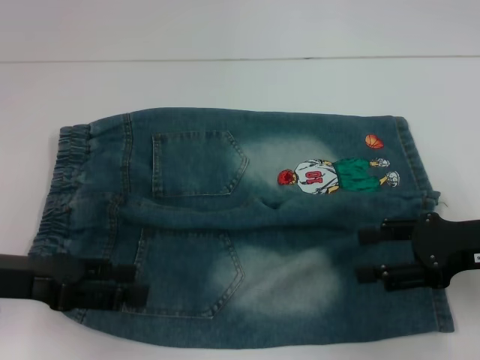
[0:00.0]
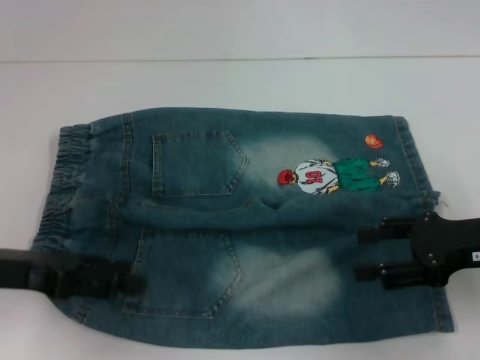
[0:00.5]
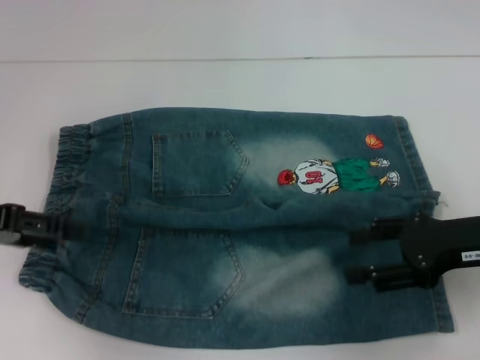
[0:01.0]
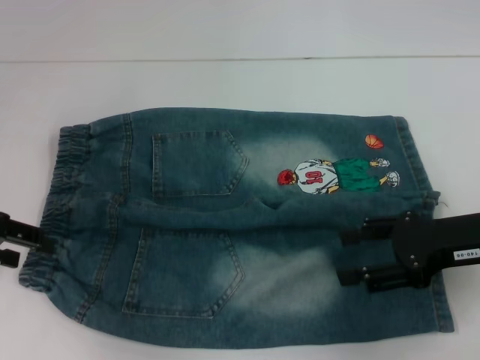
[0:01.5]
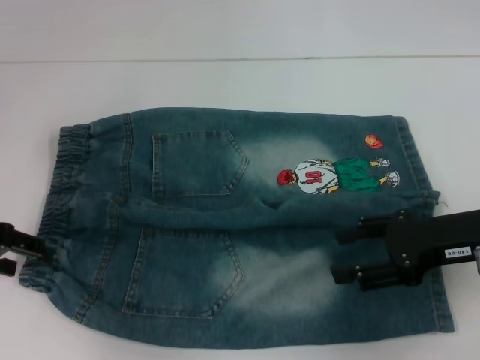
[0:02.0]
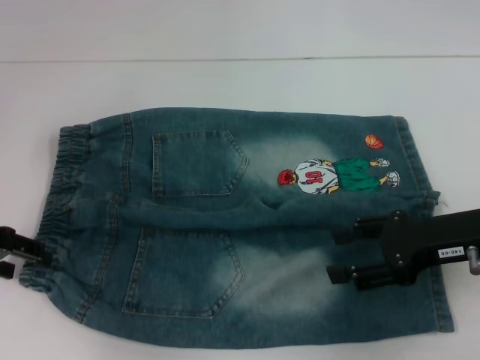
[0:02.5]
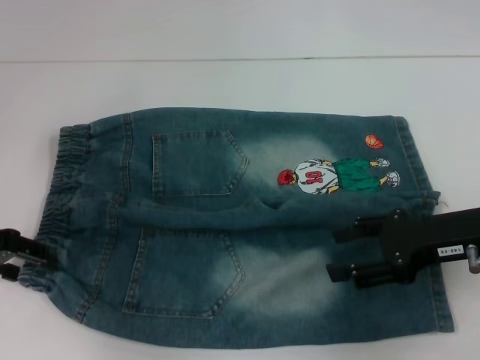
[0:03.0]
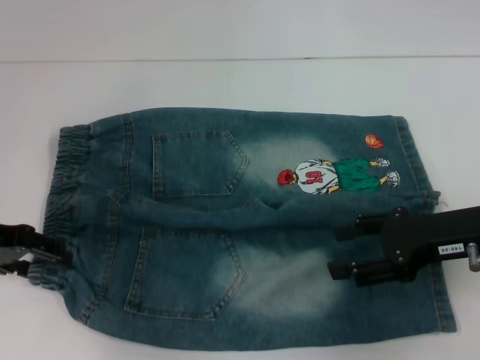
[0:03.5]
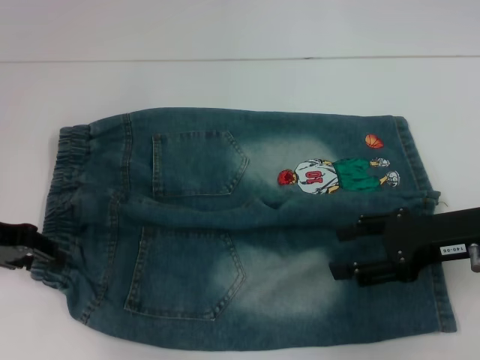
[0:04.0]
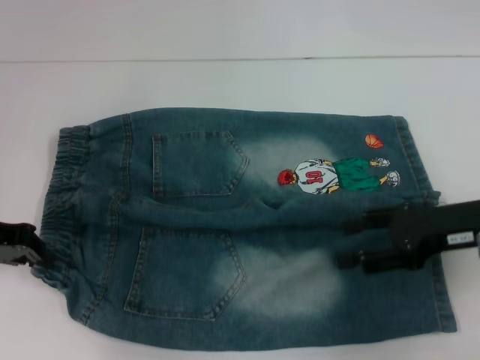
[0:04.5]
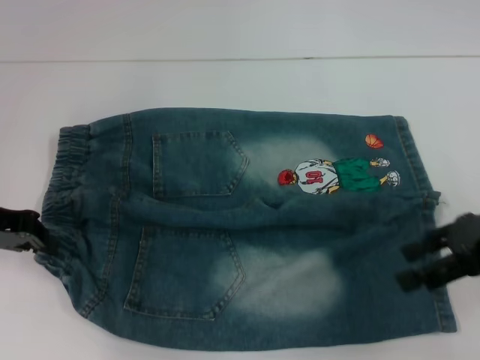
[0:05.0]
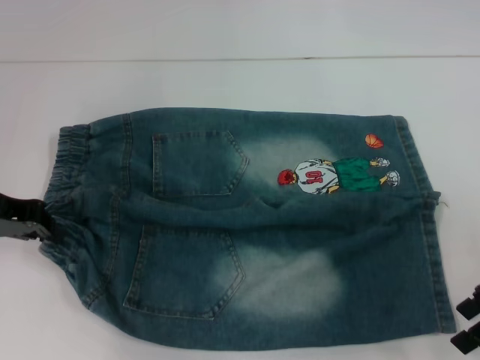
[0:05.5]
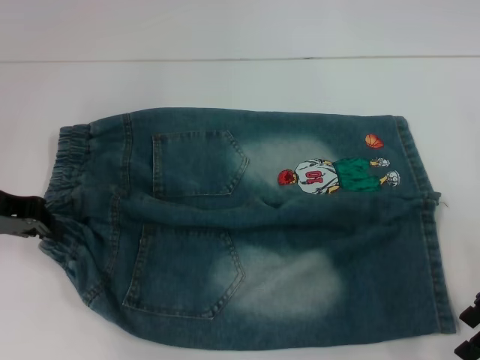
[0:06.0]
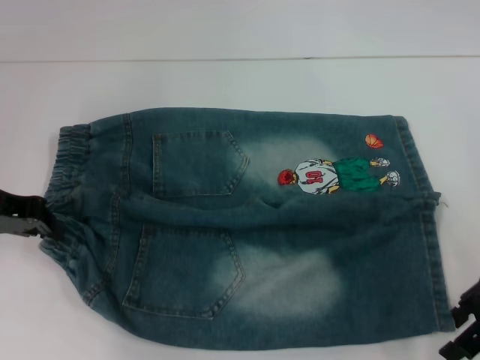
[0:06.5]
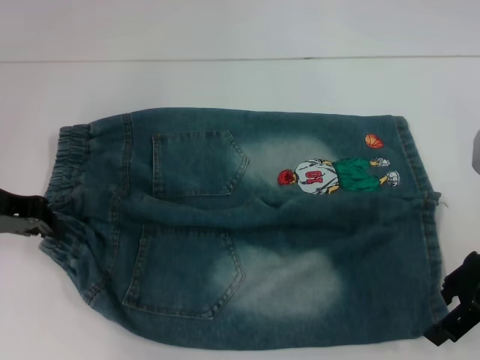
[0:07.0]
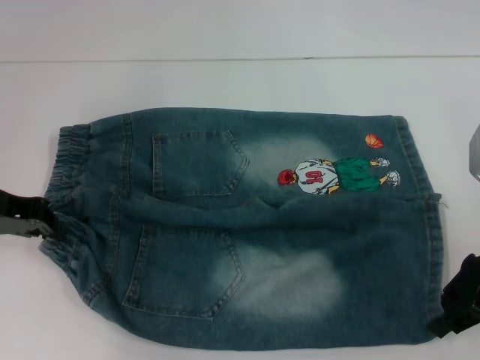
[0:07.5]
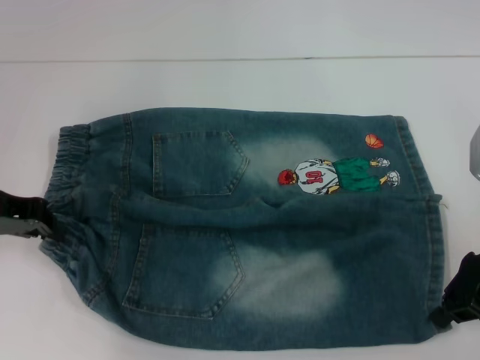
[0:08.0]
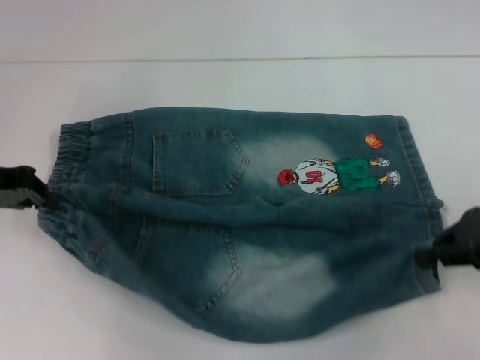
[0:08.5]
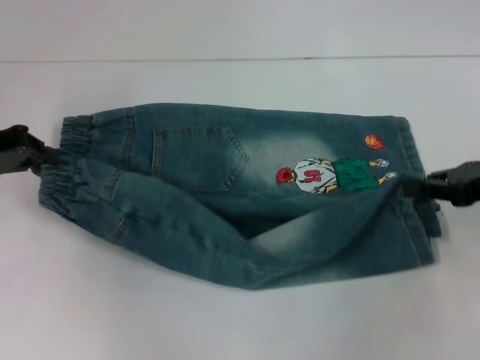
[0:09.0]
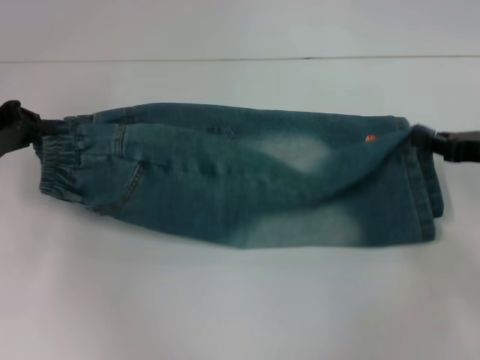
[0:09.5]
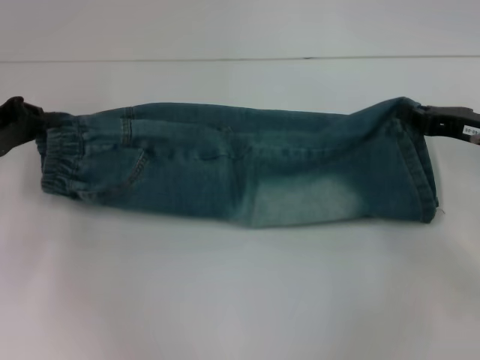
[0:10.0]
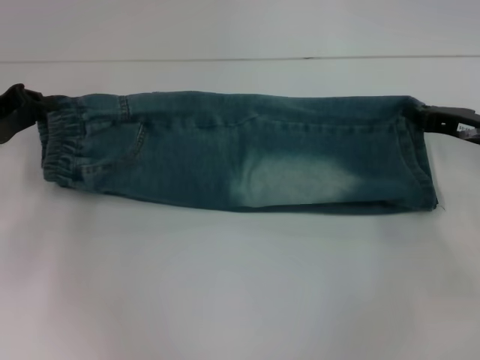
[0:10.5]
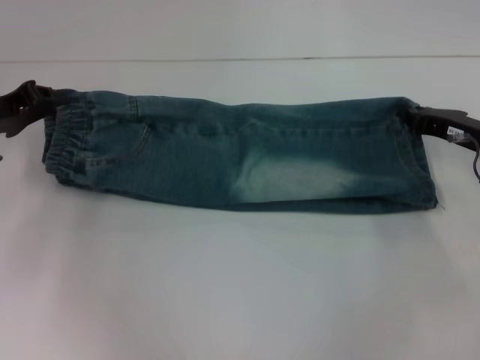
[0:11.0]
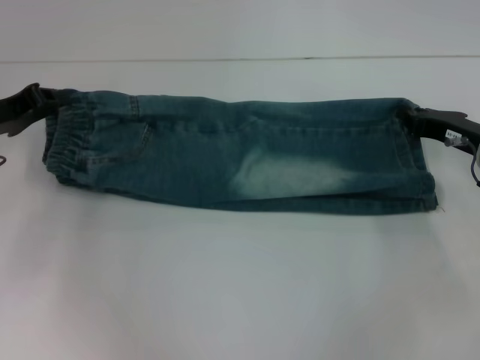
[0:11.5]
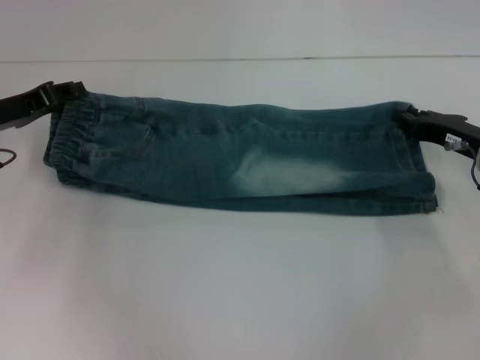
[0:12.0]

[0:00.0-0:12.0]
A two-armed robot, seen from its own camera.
Step, 0:00.0 to 0:04.0: Hold the lower left waistband with your left hand.
Step, 0:04.5 to 0:07.5: Grab the lower right pant leg with your right hand.
0:00.0 to 0:02.0: The left gripper moves forward, some 5 cm.
0:02.0 to 0:04.0: The grippers stay close to where they were, moving slightly.
0:04.0 to 0:06.0: The left gripper closes.
0:06.0 to 0:08.0: The right gripper closes its fingers.
0:08.0 to 0:10.0: The right gripper ends up approximately 5 cm from where it was.
0:10.0 to 0:12.0: There are only small adjustments of the grippers.

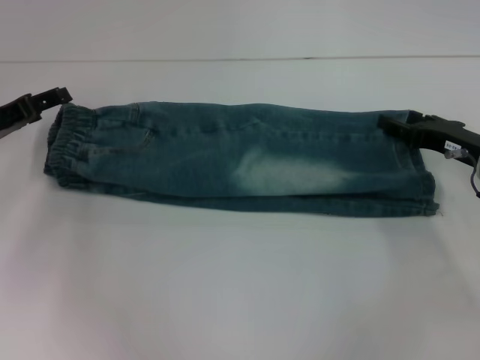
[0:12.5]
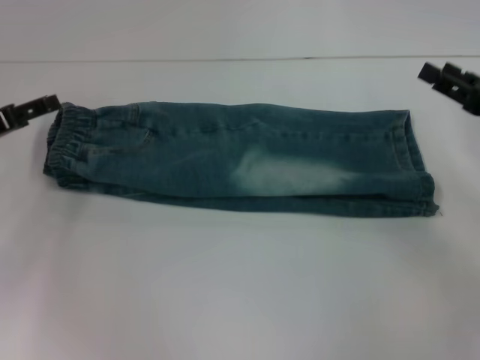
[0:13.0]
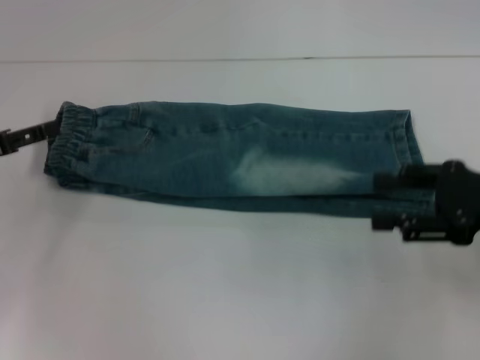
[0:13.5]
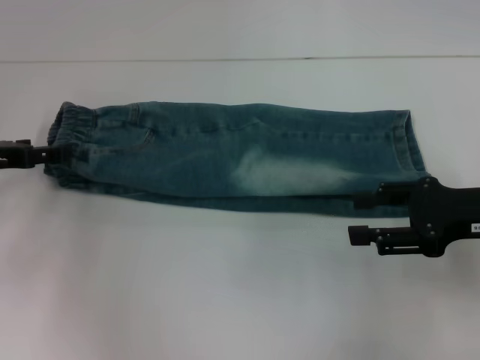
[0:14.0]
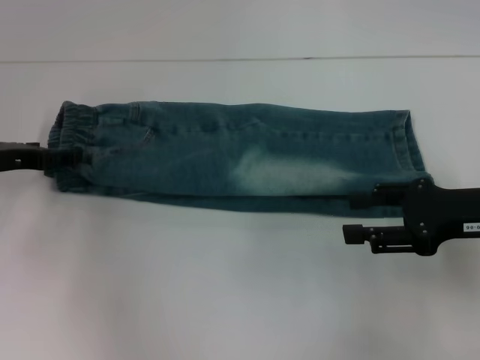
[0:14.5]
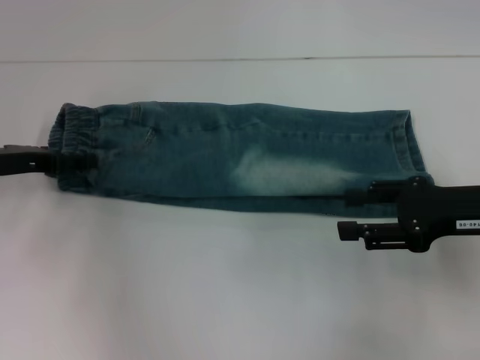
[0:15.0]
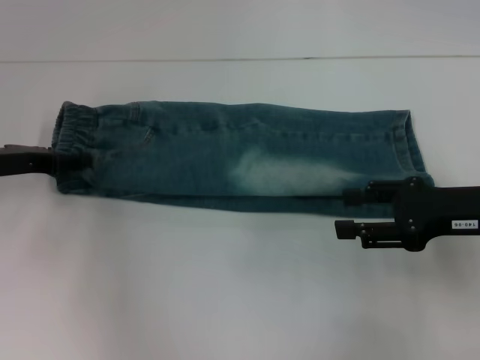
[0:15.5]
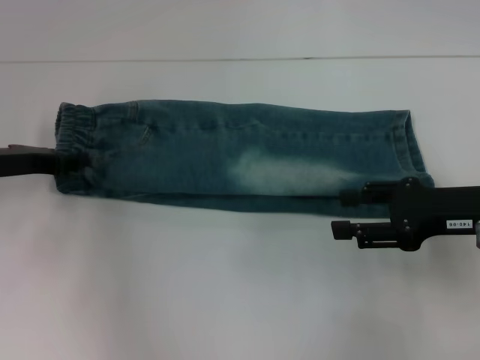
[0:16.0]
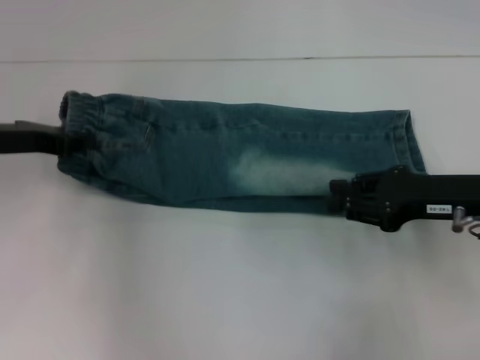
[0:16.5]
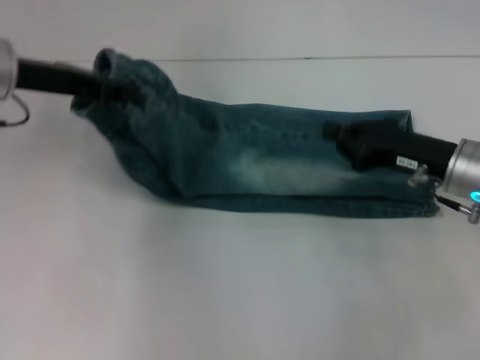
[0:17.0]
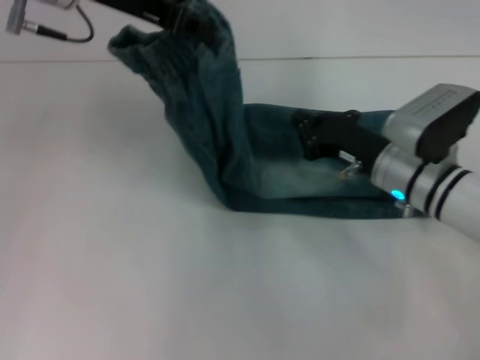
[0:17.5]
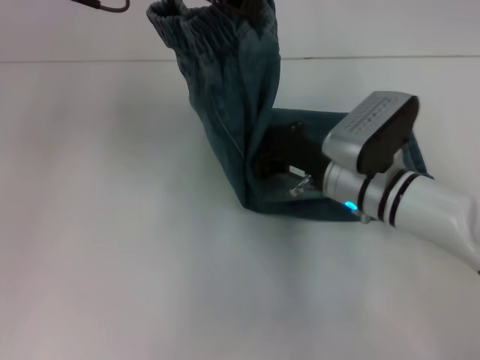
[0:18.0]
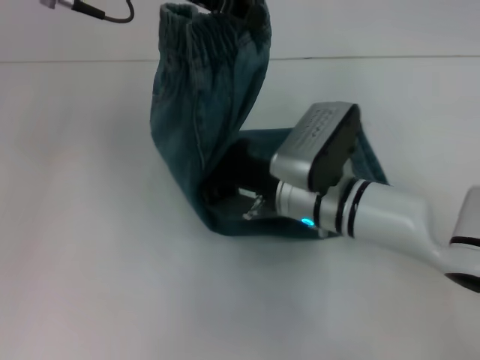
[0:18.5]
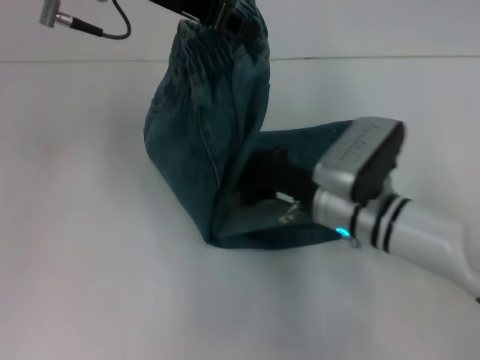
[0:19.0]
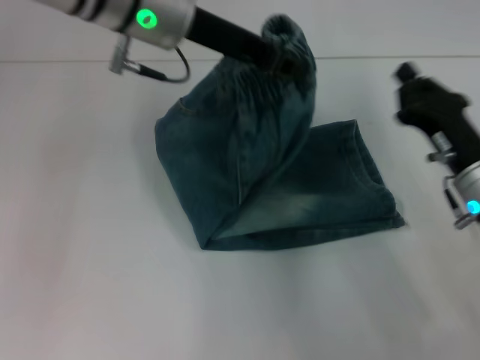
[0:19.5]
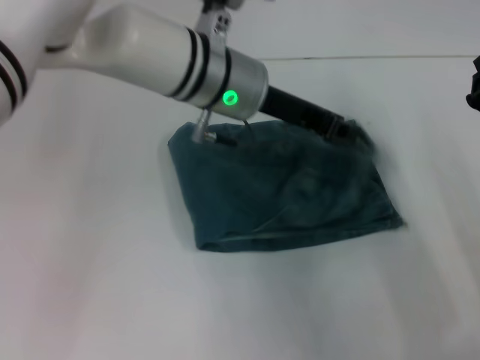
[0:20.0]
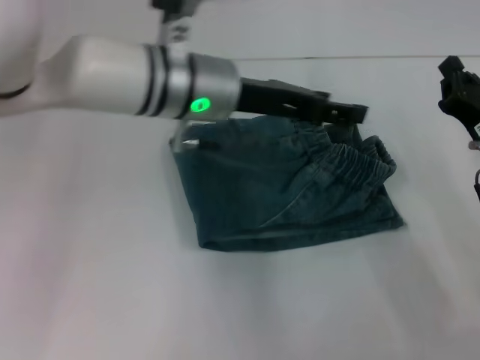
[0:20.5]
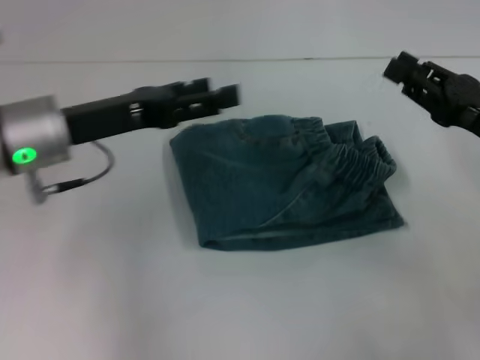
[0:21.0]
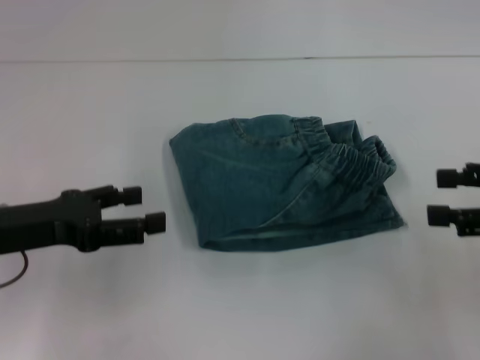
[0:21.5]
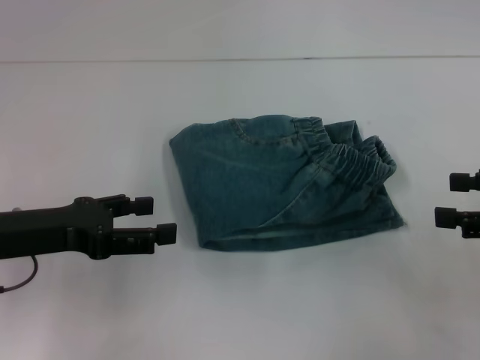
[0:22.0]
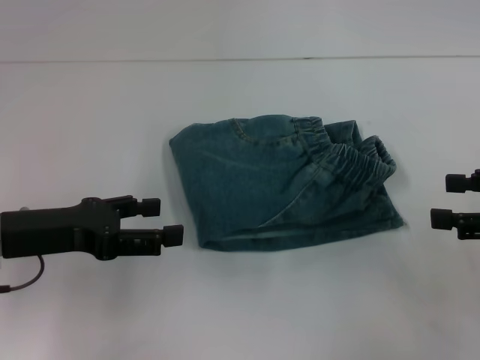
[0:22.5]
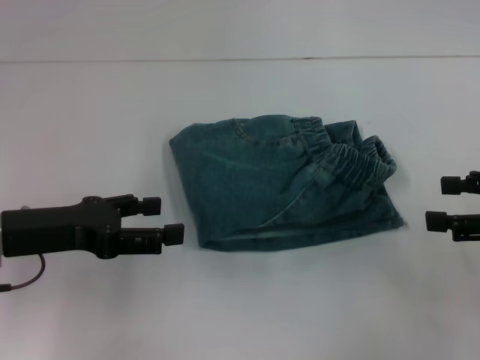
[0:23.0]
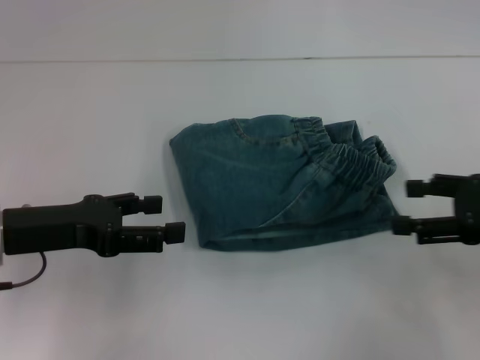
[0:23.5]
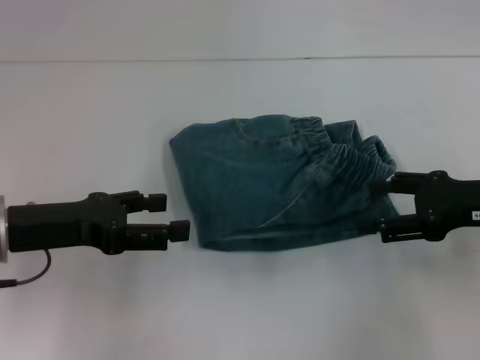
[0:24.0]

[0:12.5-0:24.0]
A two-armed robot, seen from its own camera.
Step, 0:13.0 to 0:16.0: Hold the waistband with your left hand.
Step, 0:16.5 to 0:18.5: Fold to the right with your left hand.
Step, 0:19.0 to 0:20.0: Press the middle of the pants with your right hand.
0:12.5 to 0:14.5: The right gripper travels backward and upward by roughly 10 cm.
0:14.5 to 0:16.5: The left gripper closes.
0:16.5 to 0:18.5: The left gripper moves upward and to the right, approximately 25 cm. Meanwhile the right gripper goes roughly 20 cm to the left, and closes.
0:18.5 to 0:20.0: The right gripper travels to the right by about 20 cm; the left gripper is displaced downward and to the right by about 15 cm.
0:20.0 to 0:22.0: The right gripper is displaced upward and to the right by roughly 10 cm, and opens up; the left gripper moves to the left and backward, approximately 25 cm, and opens its fingers.
0:22.0 to 0:24.0: The right gripper goes some 5 cm to the left.

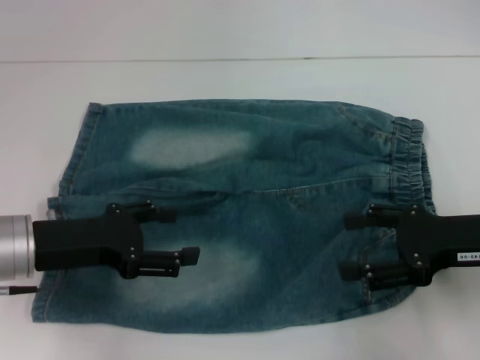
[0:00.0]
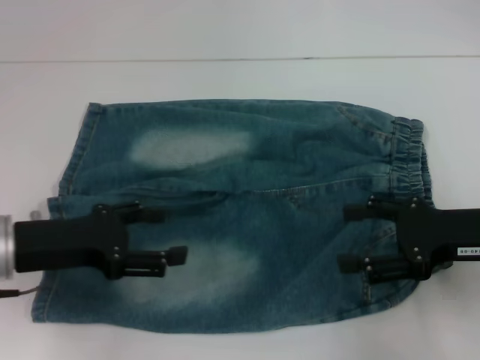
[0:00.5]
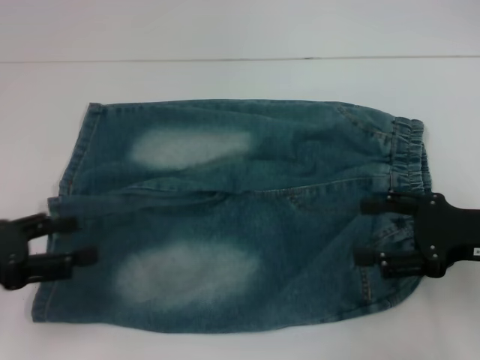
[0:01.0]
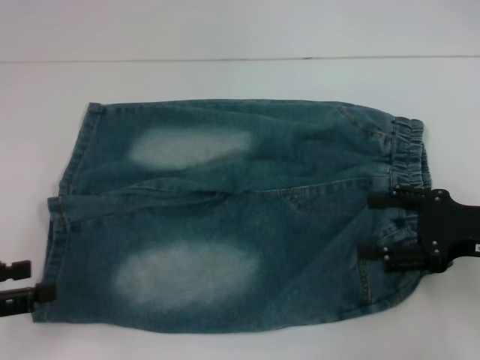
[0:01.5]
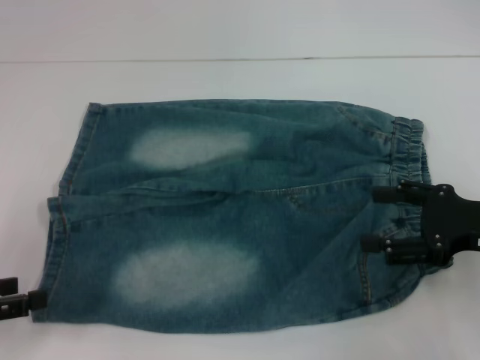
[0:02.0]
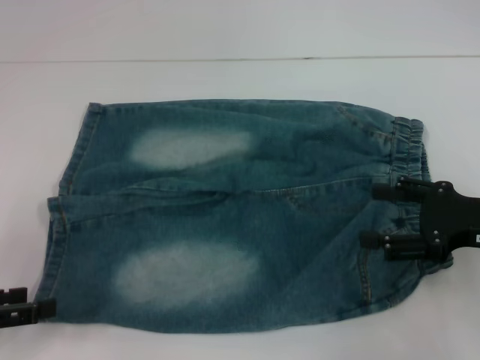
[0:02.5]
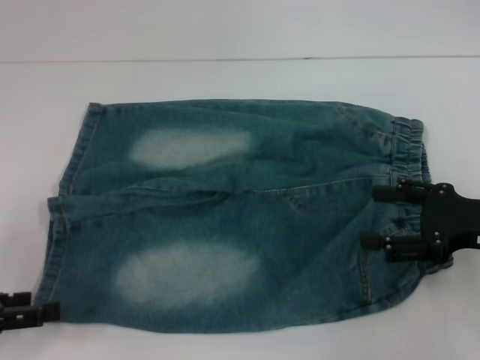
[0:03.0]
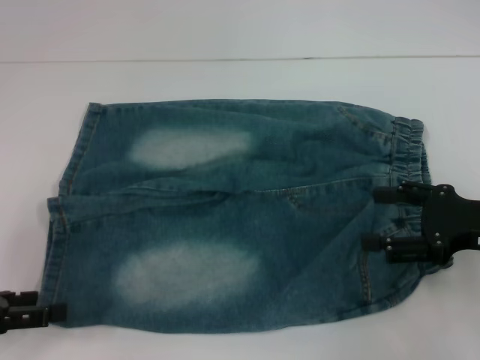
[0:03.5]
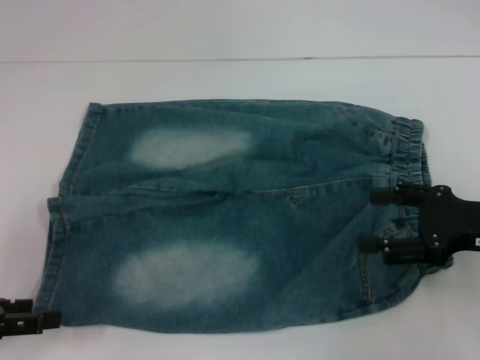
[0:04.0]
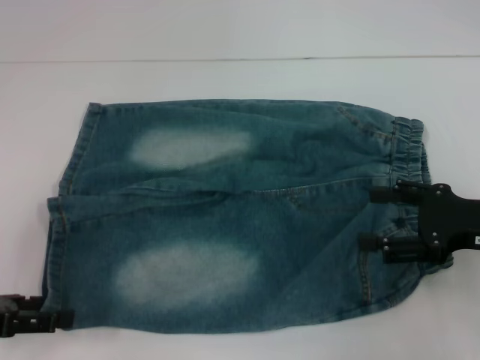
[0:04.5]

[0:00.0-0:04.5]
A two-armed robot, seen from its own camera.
0:00.0 to 0:02.0: The left gripper moves to the left and backward, roughly 15 cm.
0:02.0 to 0:04.5: There are only small adjustments of the grippers.
